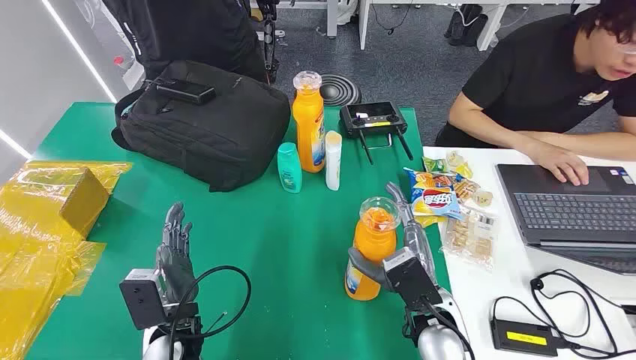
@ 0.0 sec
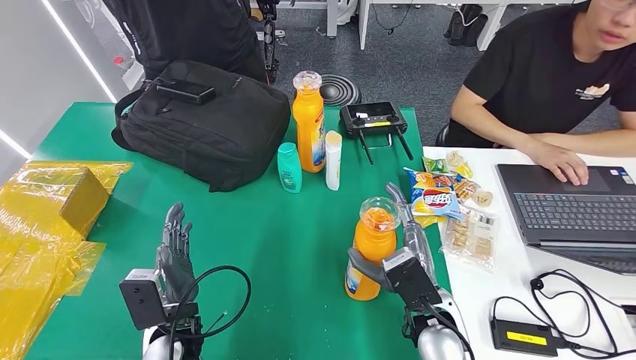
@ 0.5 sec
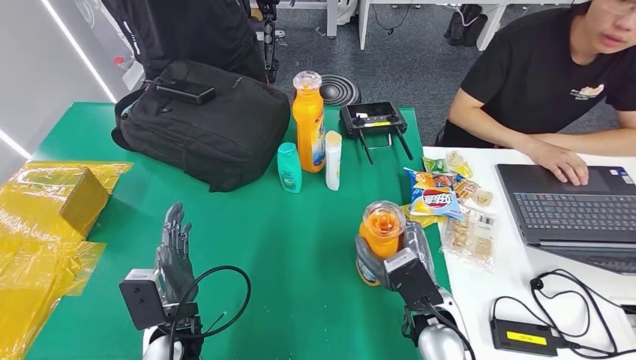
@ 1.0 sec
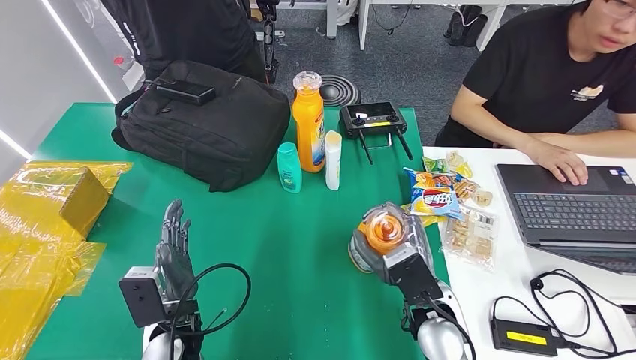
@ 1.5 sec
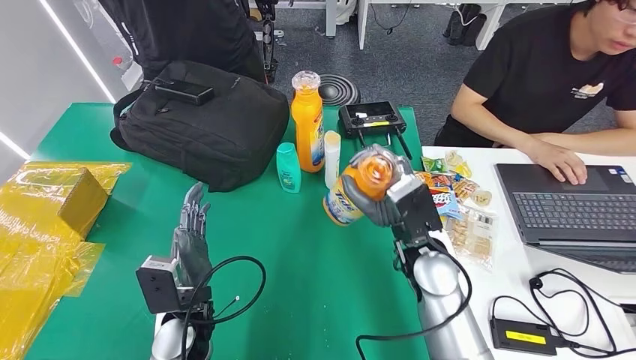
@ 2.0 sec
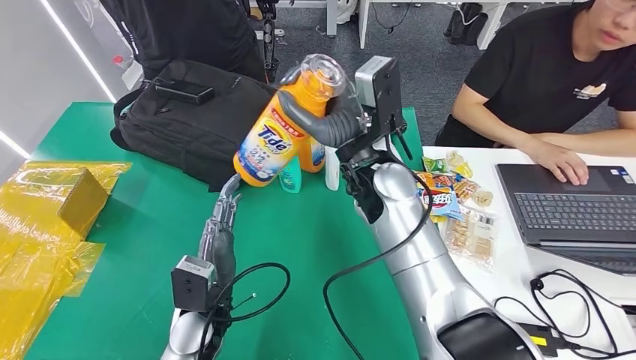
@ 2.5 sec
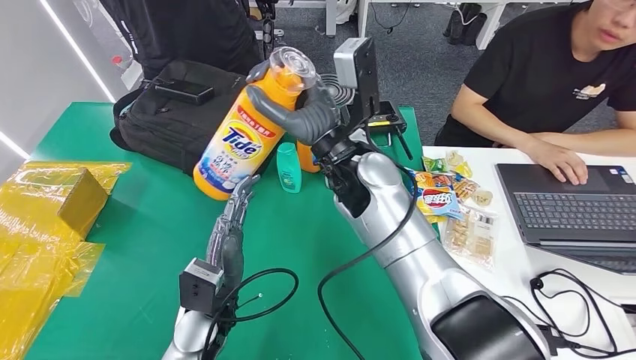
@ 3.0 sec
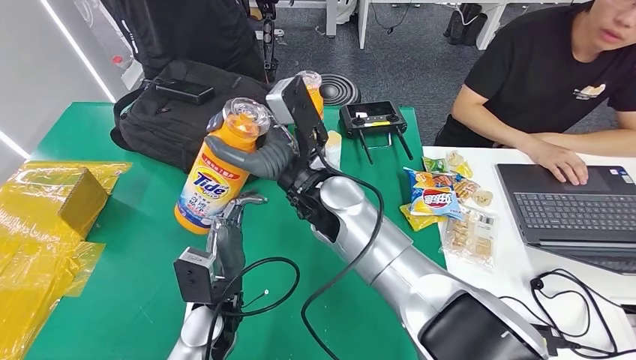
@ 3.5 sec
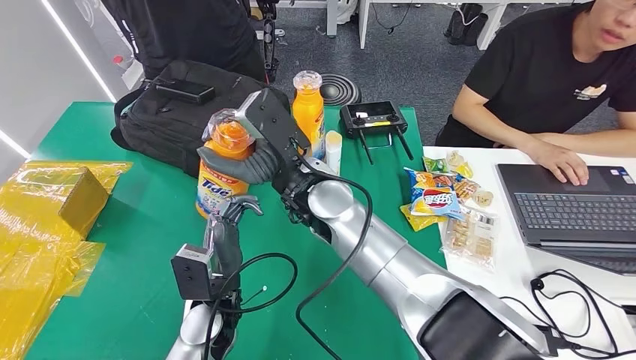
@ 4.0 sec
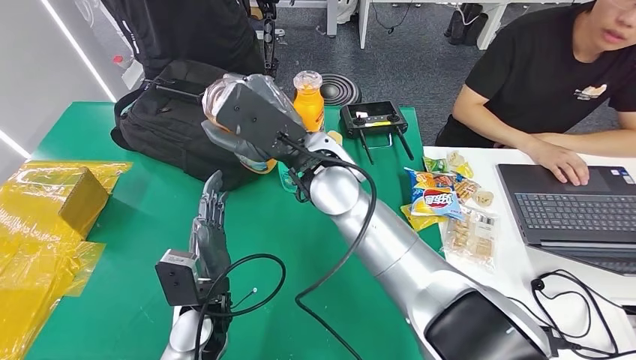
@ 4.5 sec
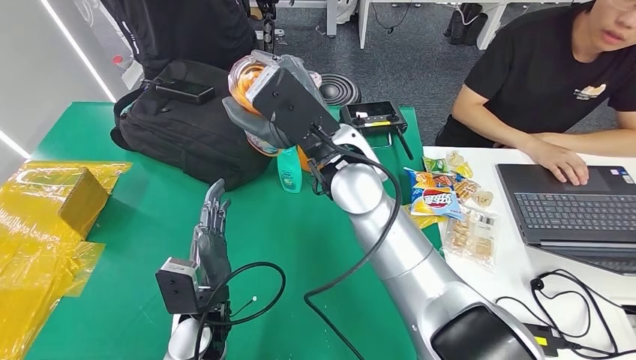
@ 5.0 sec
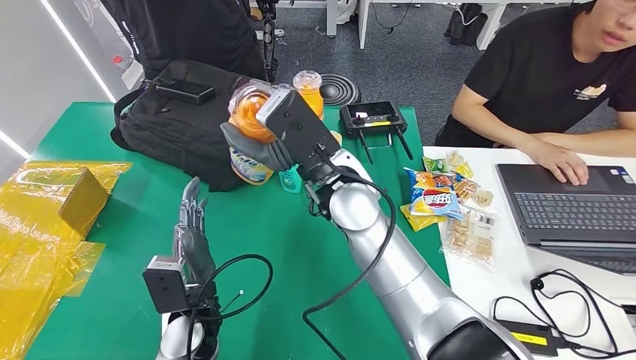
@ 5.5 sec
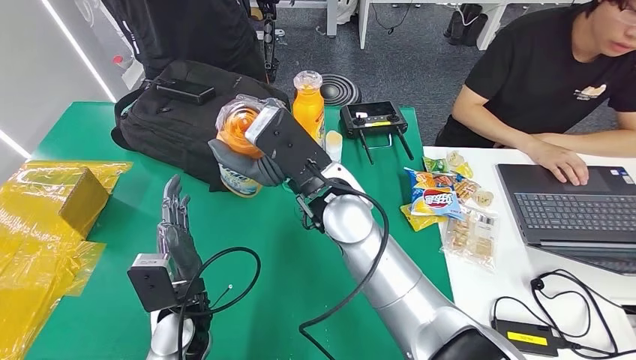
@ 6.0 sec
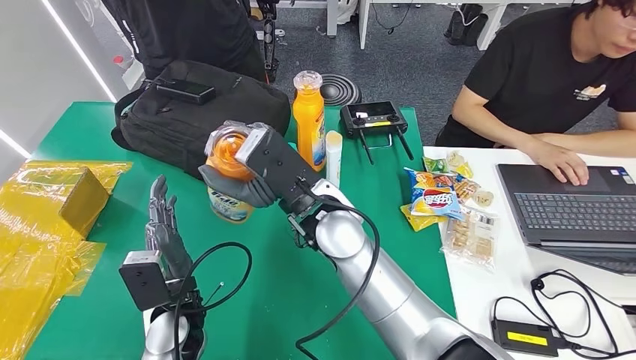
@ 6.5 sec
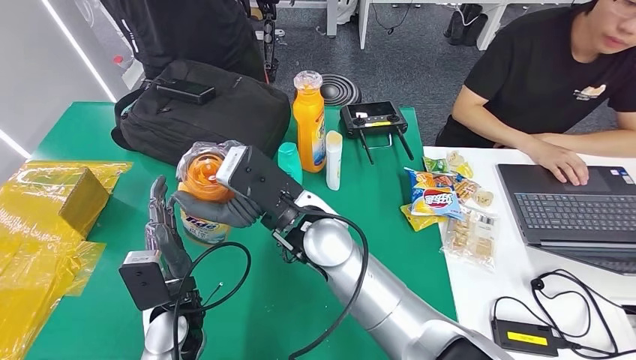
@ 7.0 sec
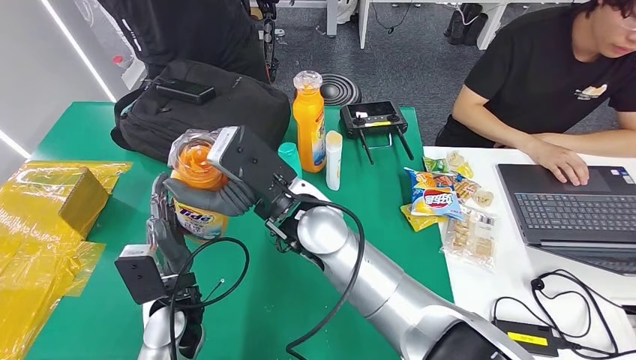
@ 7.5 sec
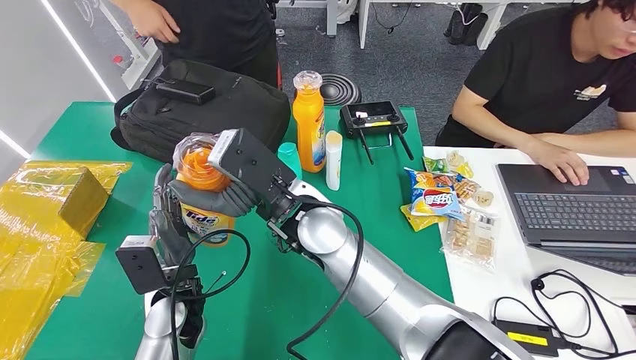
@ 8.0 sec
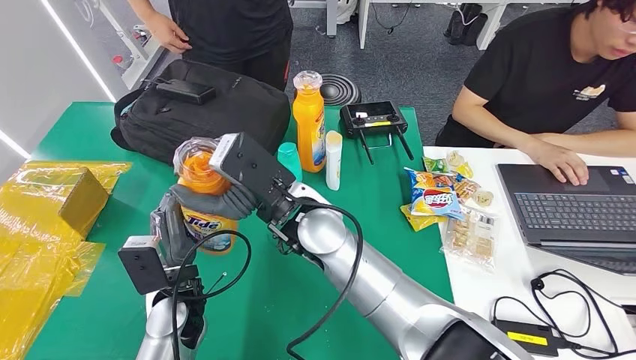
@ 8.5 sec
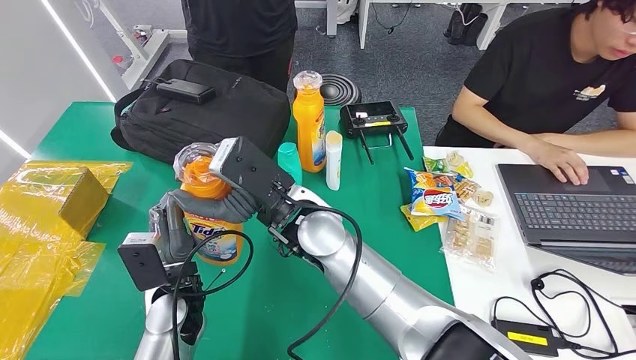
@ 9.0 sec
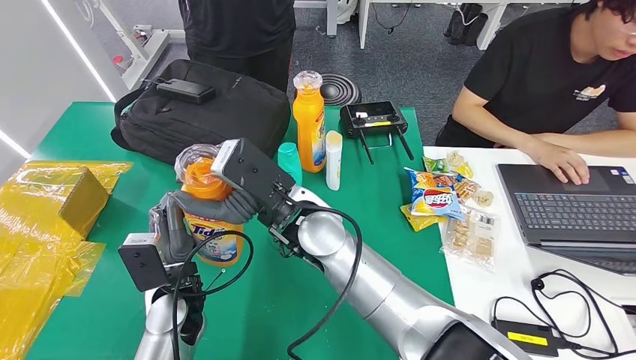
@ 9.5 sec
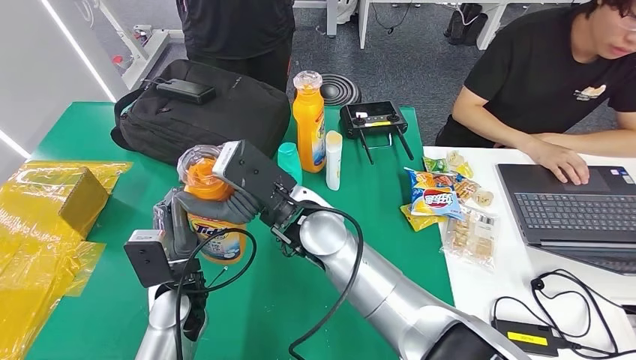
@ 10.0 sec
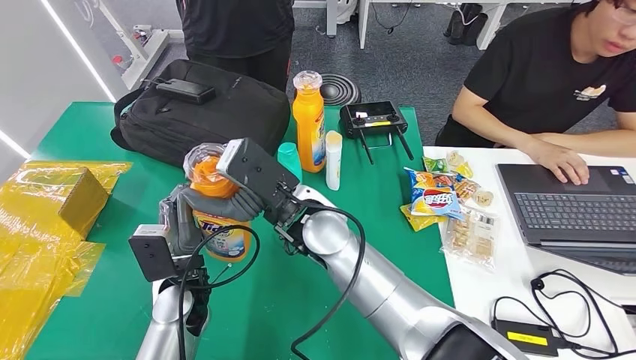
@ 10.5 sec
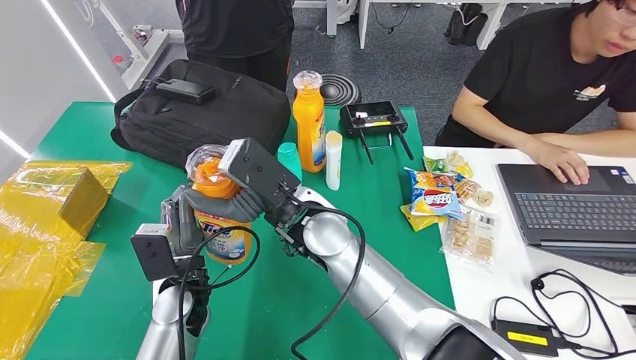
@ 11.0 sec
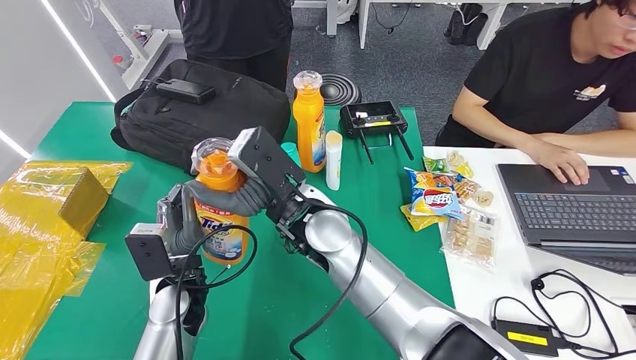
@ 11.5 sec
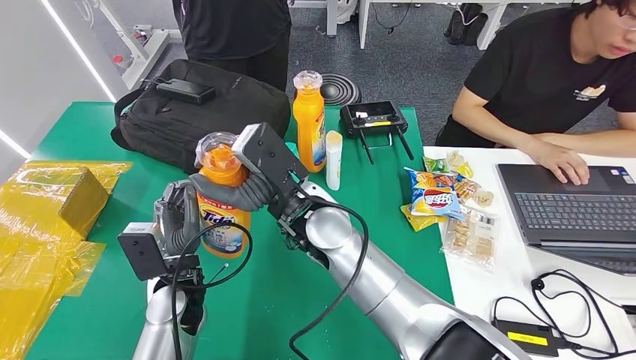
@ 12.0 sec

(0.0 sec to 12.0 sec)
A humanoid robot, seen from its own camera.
Step, 0.0 sec - 2.0 sec: Pick up the bottle from the table.
6.0 sec - 12.0 sec: There are only small adjustments of the hands.

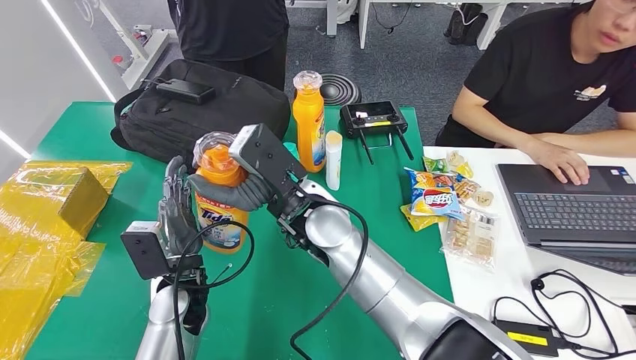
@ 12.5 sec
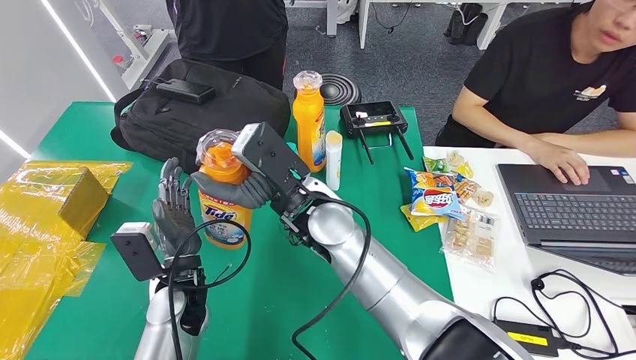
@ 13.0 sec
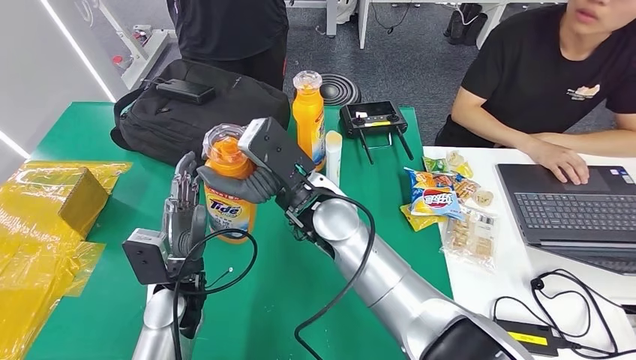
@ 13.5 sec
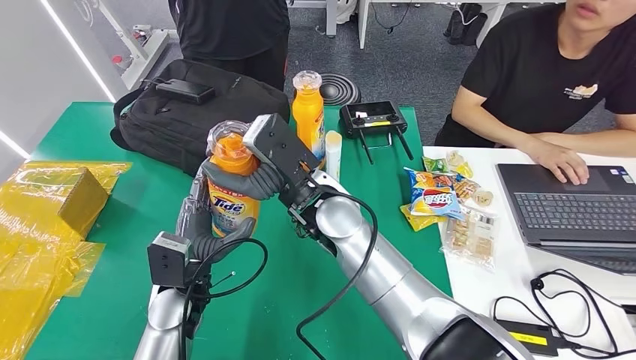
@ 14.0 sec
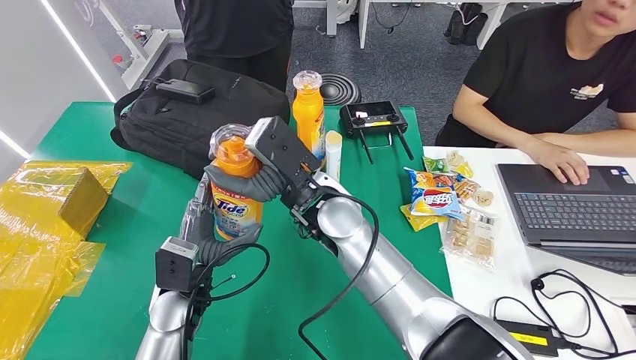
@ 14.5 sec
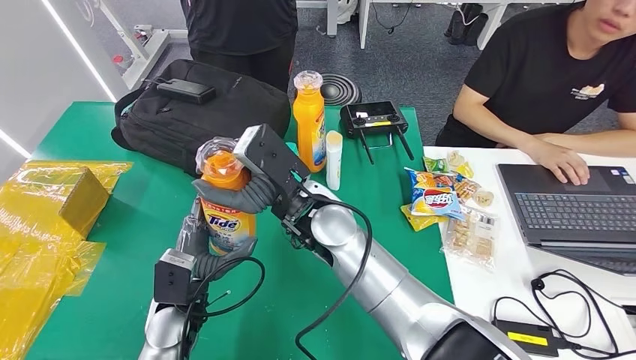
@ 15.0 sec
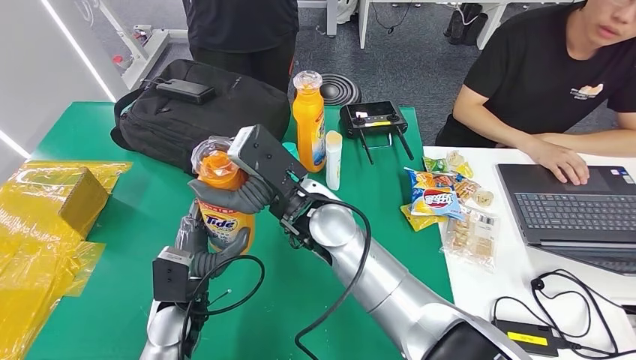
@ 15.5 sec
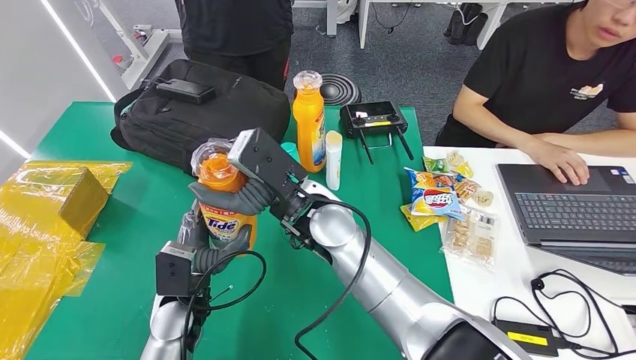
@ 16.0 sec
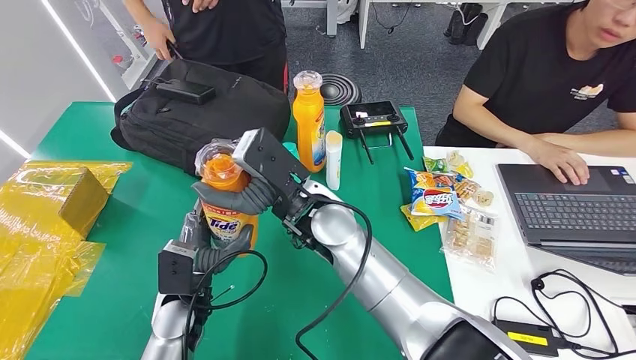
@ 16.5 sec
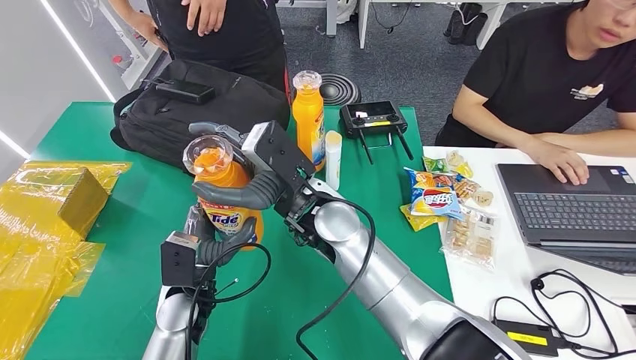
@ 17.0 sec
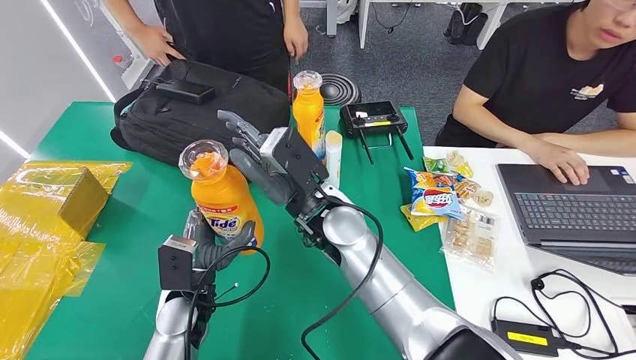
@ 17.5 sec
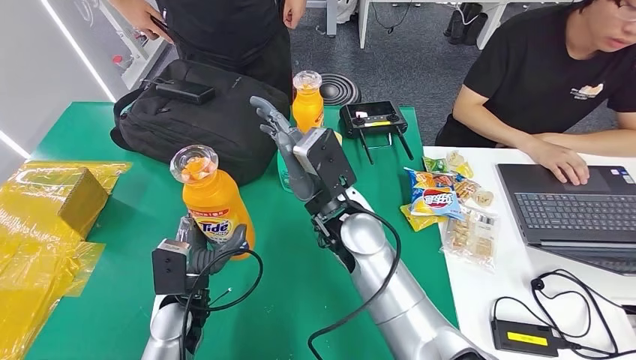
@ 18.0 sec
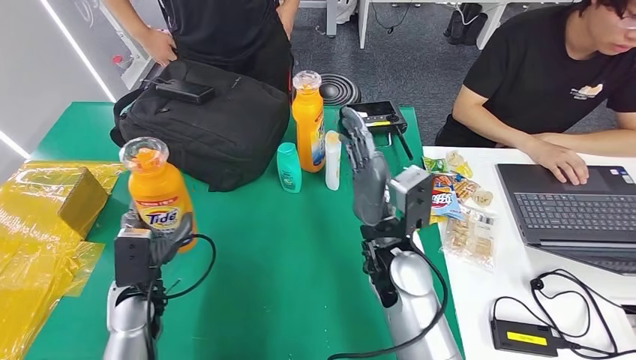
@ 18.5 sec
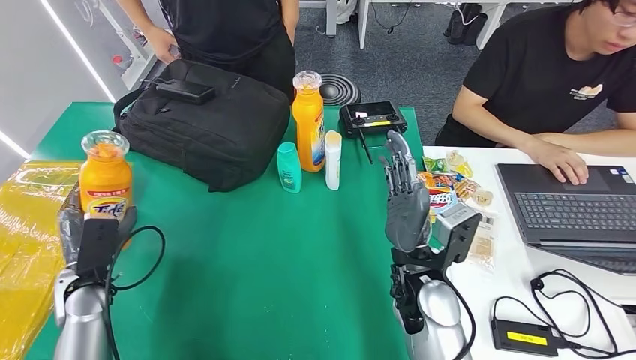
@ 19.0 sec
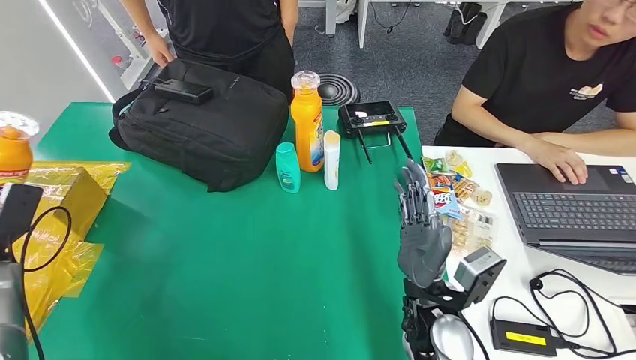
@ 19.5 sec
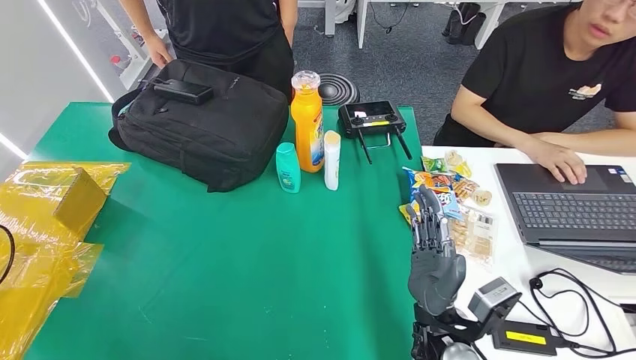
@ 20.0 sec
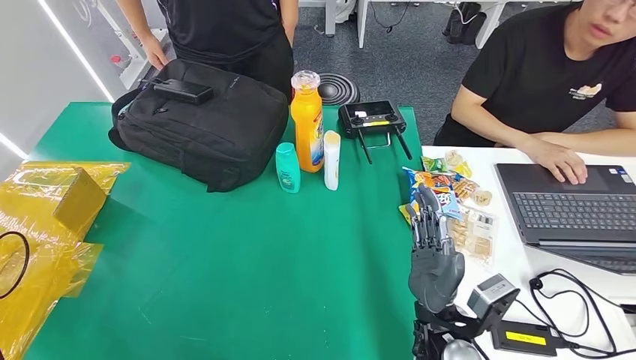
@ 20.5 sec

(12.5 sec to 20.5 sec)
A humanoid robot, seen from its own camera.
Step, 18.0 sec - 20.5 sec: Turn the bottle to the front side.
14.5 sec - 16.5 sec: The hands move only a little.
